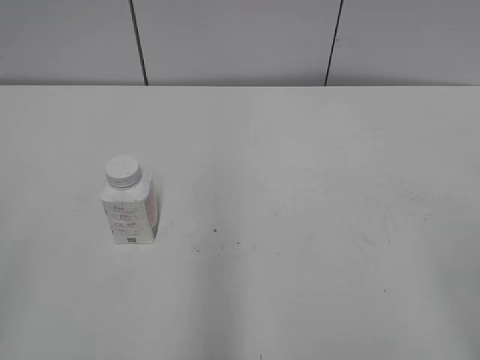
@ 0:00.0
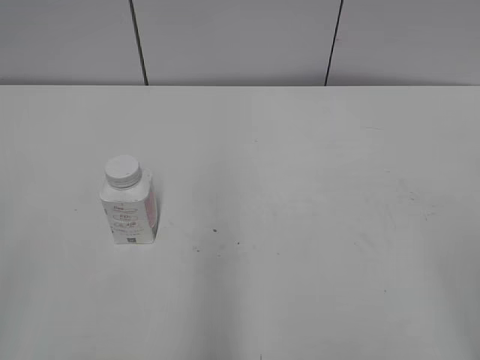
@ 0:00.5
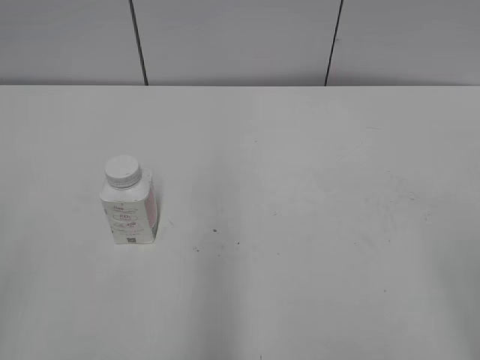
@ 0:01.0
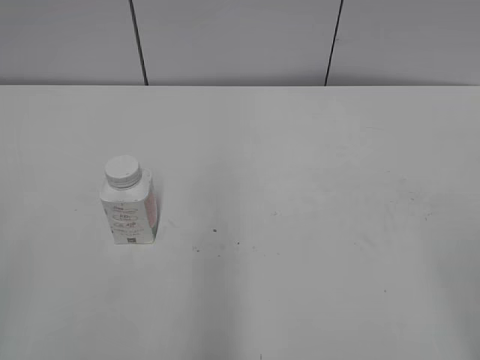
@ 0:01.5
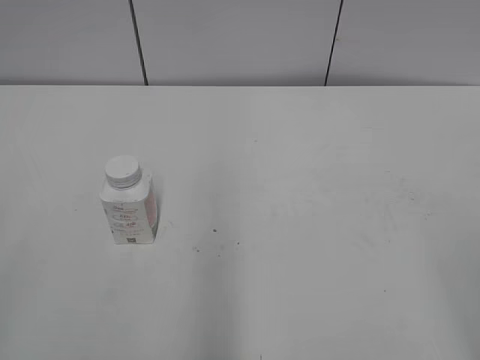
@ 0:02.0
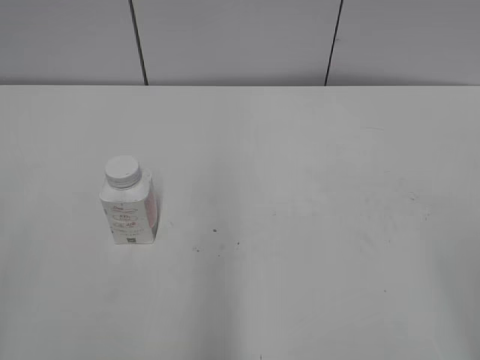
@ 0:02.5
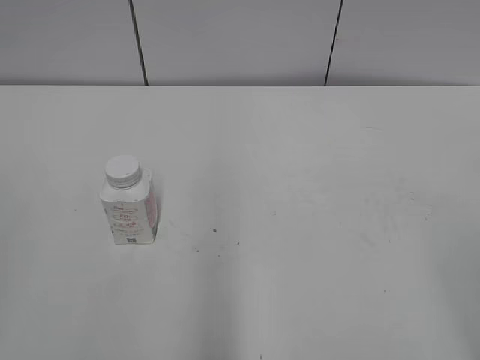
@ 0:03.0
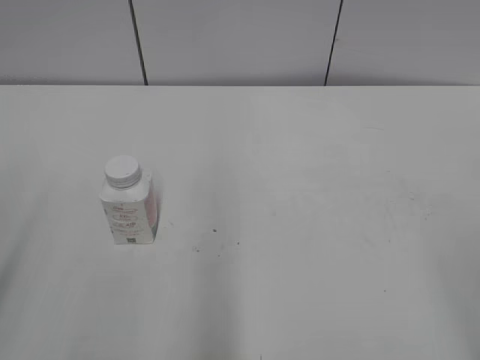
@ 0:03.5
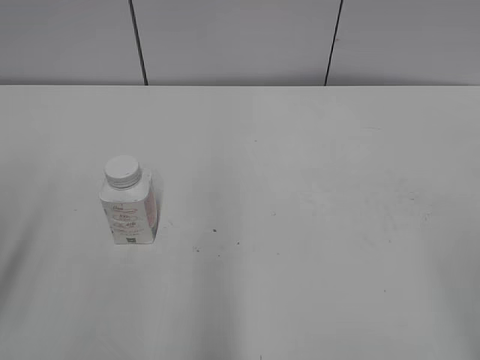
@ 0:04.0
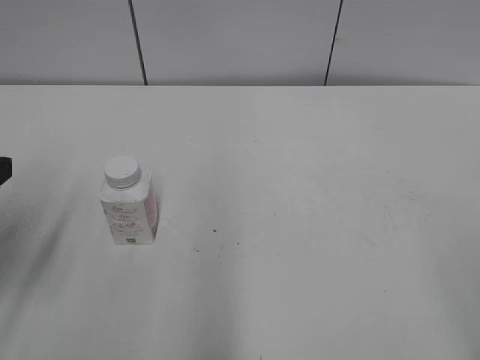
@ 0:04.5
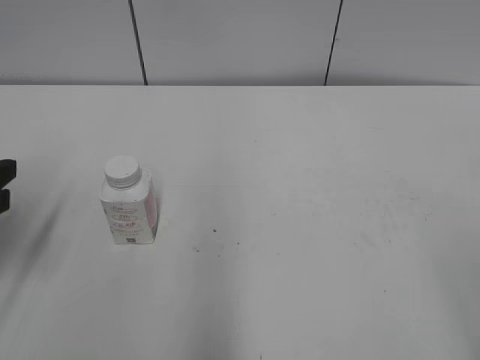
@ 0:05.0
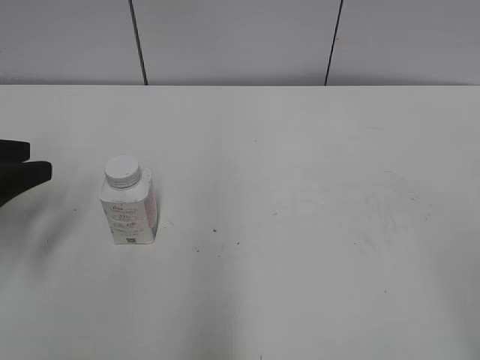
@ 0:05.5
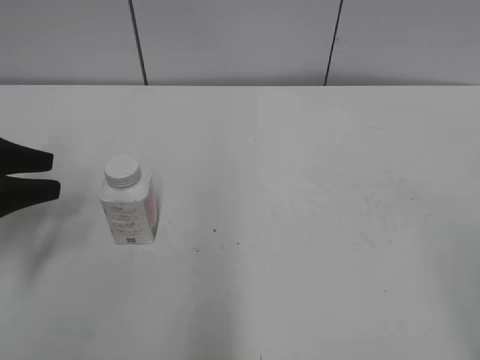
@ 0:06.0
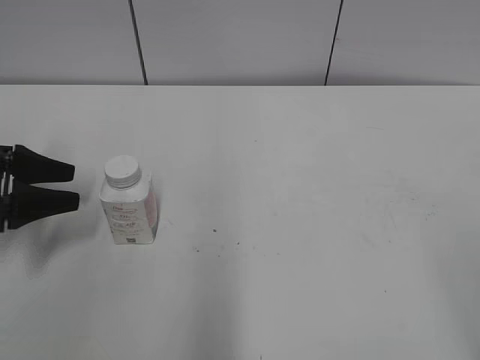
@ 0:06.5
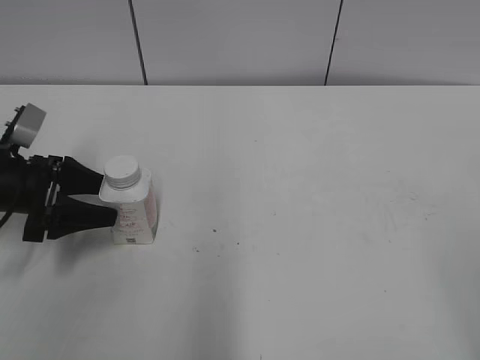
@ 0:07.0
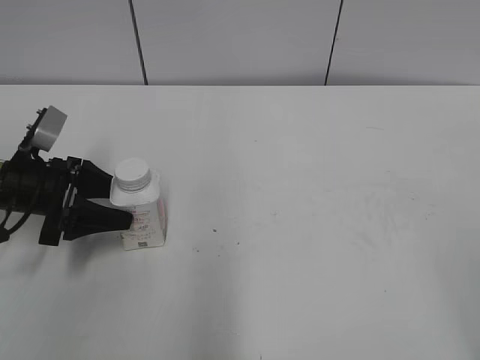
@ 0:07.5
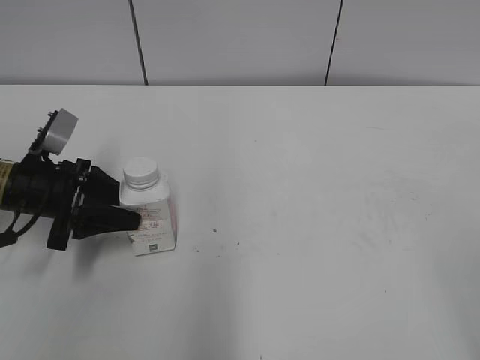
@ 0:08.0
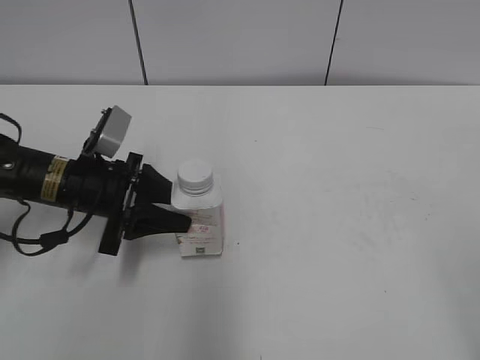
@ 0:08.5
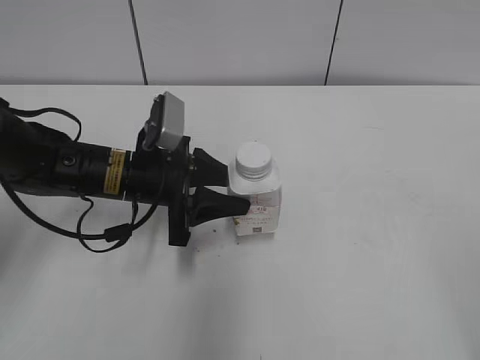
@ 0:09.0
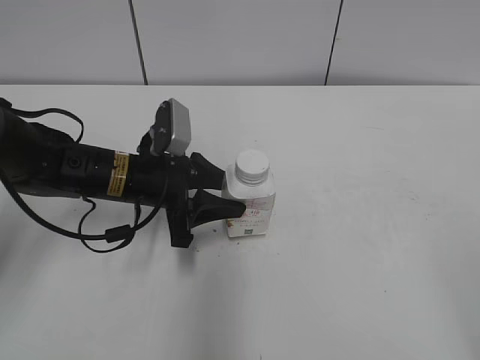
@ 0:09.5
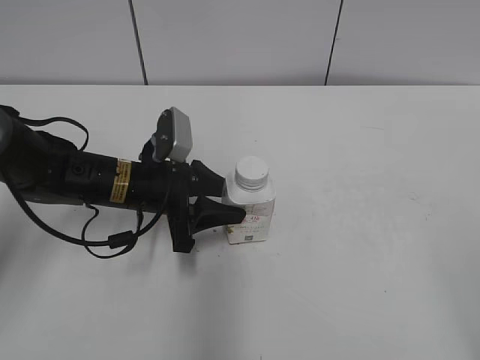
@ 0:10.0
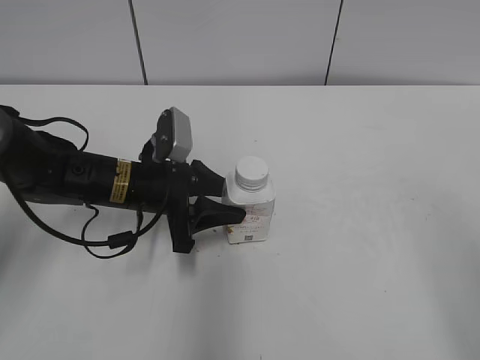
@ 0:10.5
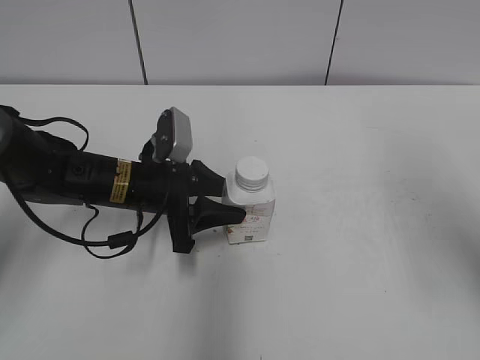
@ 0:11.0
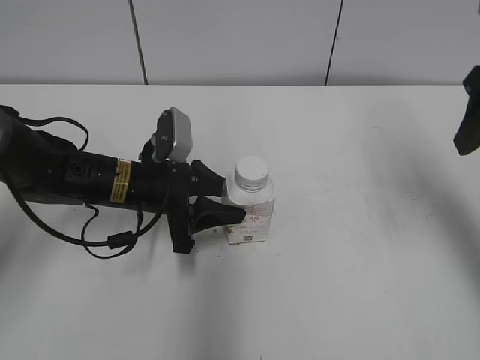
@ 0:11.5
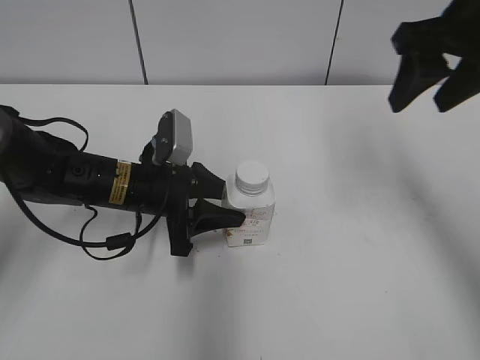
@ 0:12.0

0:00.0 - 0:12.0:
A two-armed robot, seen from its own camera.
Step, 0:00.0 - 0:07.5: Grab the Yili Changqing with the left hand.
Step, 0:08.0 - 0:10.5: Move the Yili Changqing from left to right.
0:04.0 - 0:06.0: The left gripper heads forward and downward, covering about 15 cm.
0:06.0 - 0:08.0: The left gripper is displaced downward, to the right and forward by some 10 cm, and opens and closes again.
0:08.0 - 0:10.0: The left gripper heads to the right, covering approximately 15 cm.
0:10.0 - 0:12.0: The right gripper goes approximately 35 cm forward, and closes its fingers.

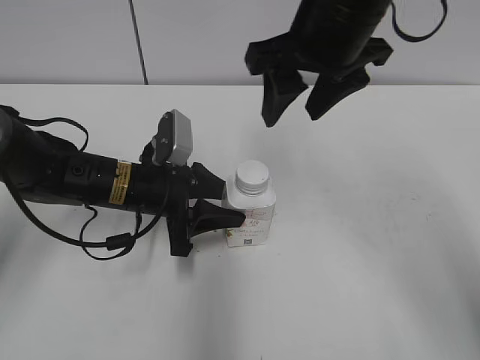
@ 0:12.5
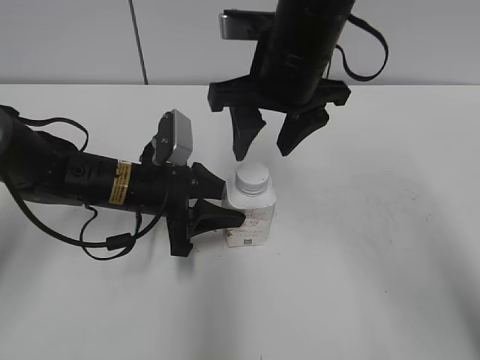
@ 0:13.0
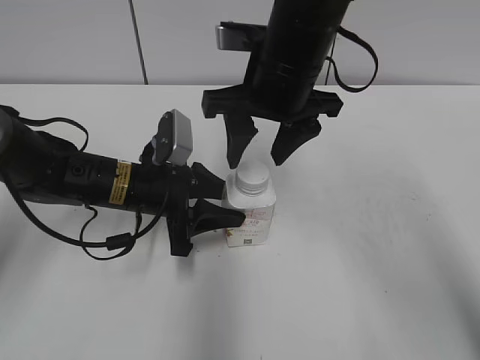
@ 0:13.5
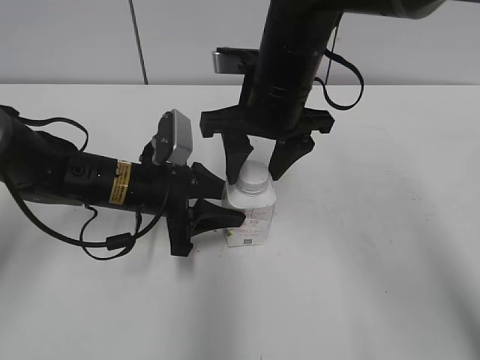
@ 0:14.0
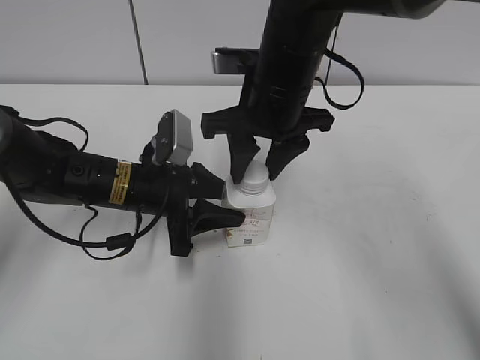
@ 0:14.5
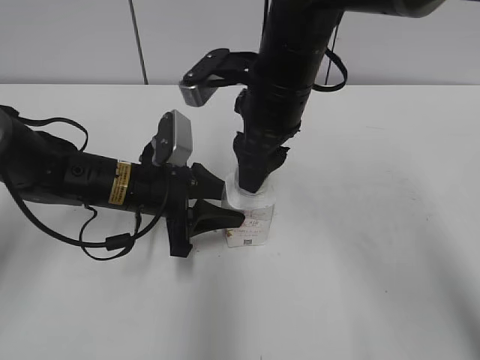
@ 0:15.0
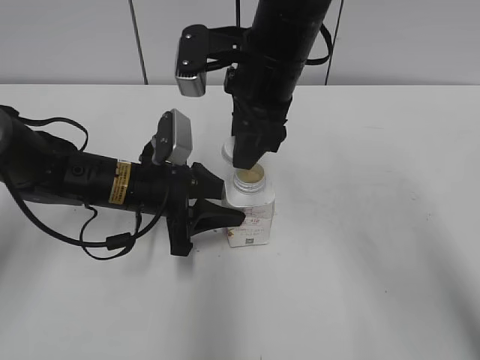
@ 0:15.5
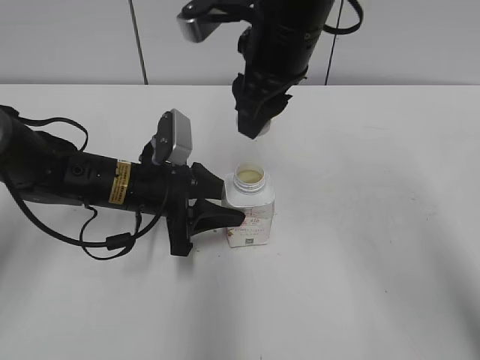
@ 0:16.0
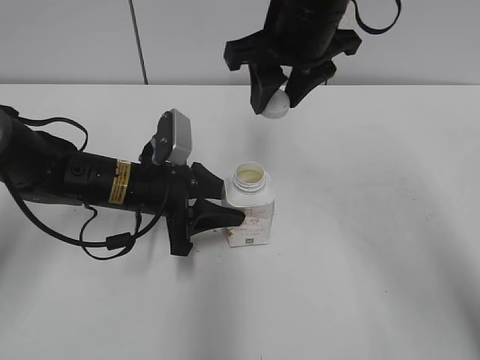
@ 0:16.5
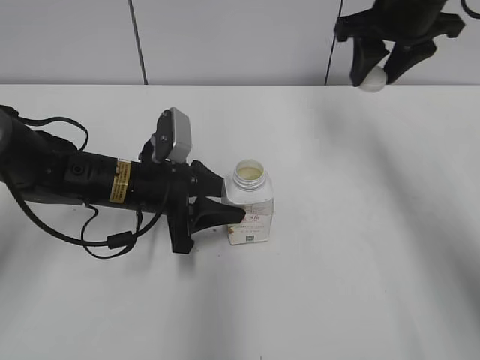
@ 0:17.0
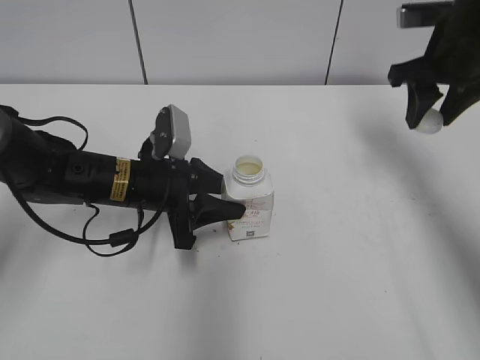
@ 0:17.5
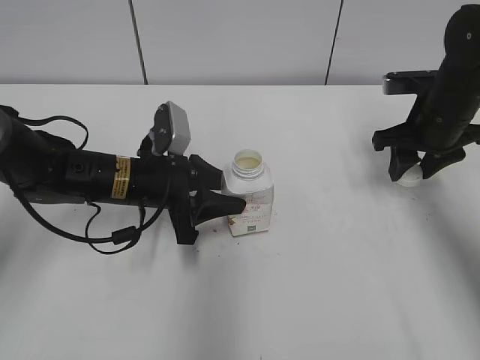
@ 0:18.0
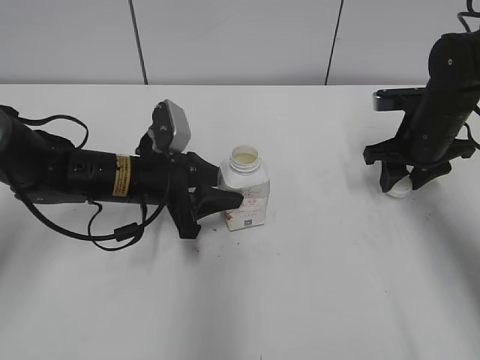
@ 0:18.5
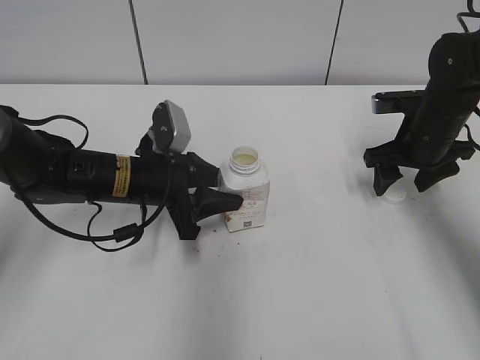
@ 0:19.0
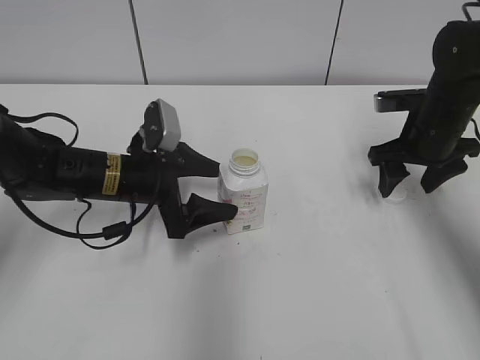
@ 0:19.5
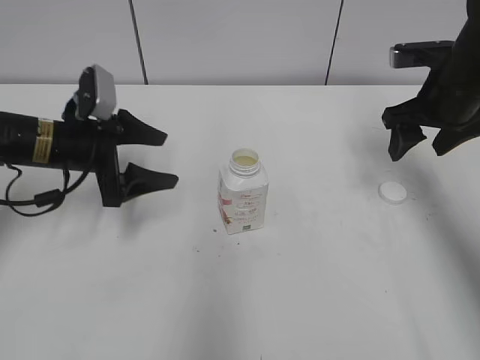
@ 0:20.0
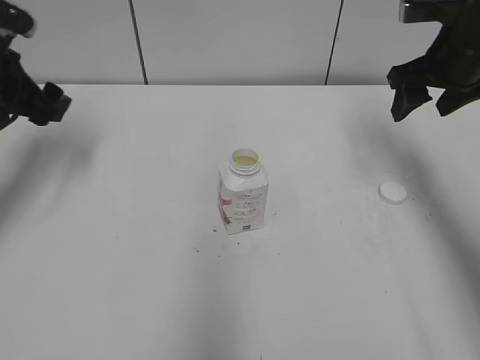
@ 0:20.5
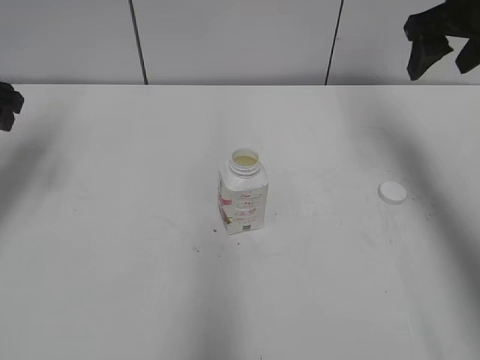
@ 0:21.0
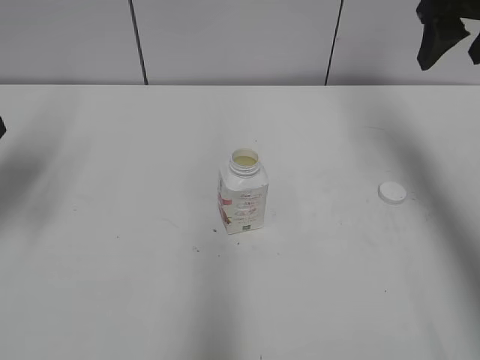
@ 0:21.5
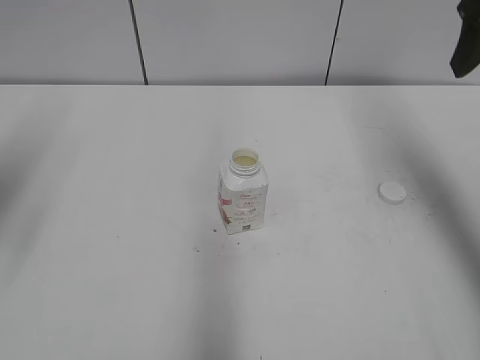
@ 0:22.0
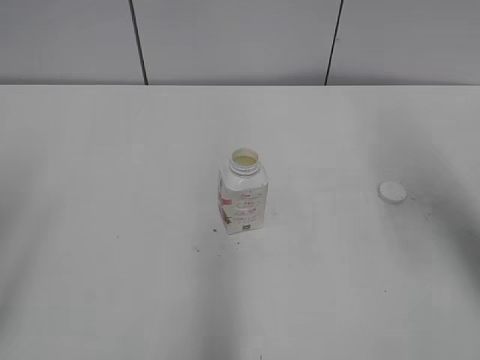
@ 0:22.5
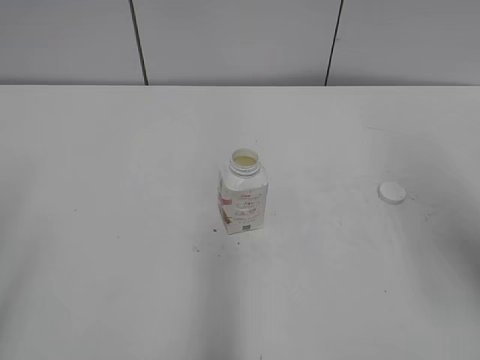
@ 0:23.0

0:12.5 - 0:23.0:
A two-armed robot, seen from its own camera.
Step, 0:15.5 - 0:18.5: Place the bottle cap on the right.
0:12.5 - 0:14.5: The right gripper is displaced downward by about 10 cm, and closes.
0:14.5 - 0:16.5: The right gripper moves upward, approximately 5 cm.
0:16.5 - 0:19.0: The right gripper shifts about 25 cm to the right and downward, and opens.
0:19.0 - 0:21.0: The right gripper is displaced upward by some 15 cm; the left gripper shifts approximately 25 cm to the left and upward, and opens its fingers.
0:21.0 - 0:23.0: Both grippers move backward, roughly 25 cm.

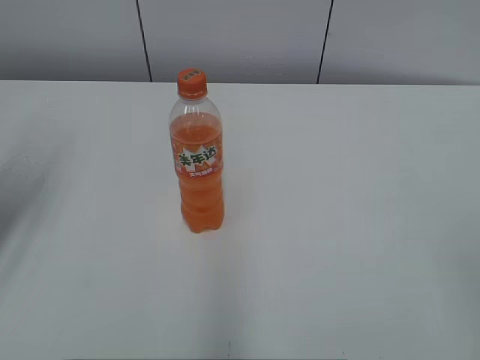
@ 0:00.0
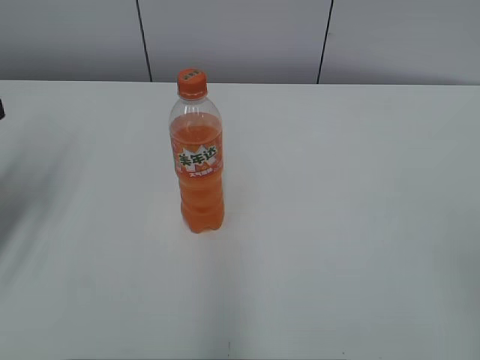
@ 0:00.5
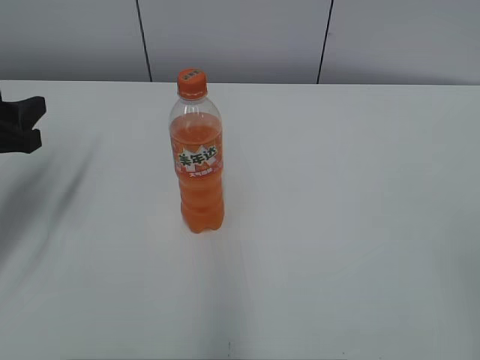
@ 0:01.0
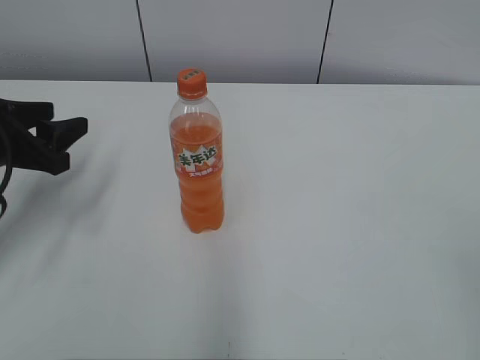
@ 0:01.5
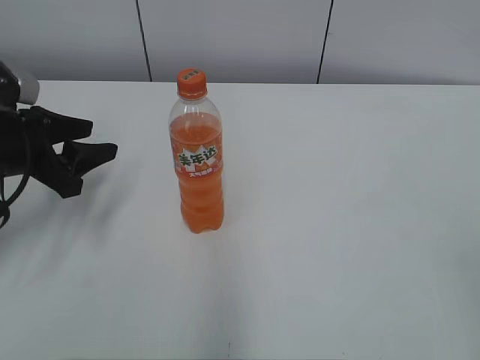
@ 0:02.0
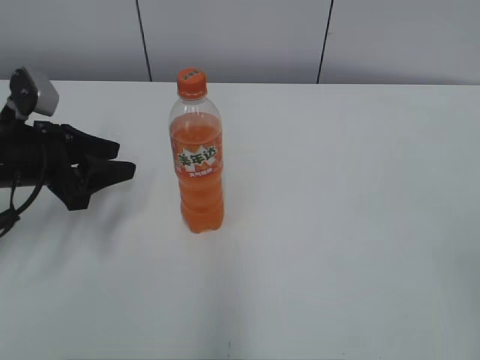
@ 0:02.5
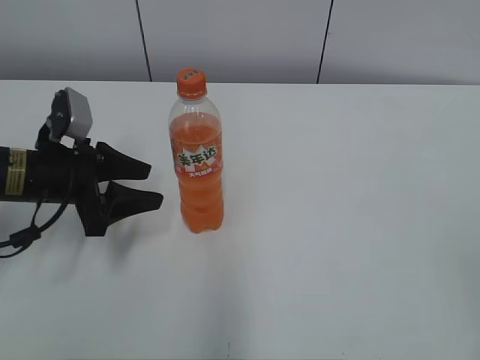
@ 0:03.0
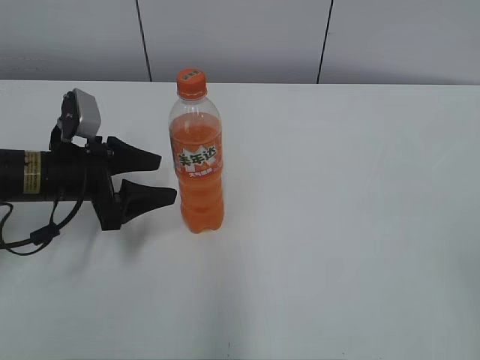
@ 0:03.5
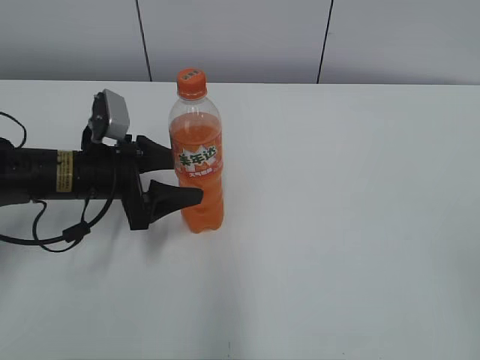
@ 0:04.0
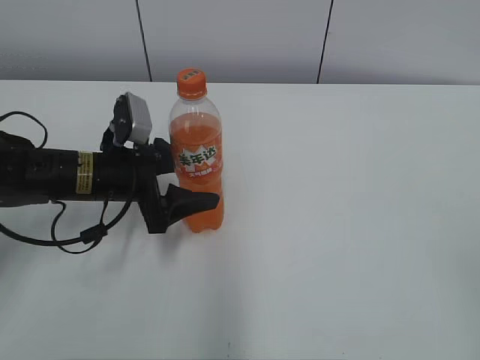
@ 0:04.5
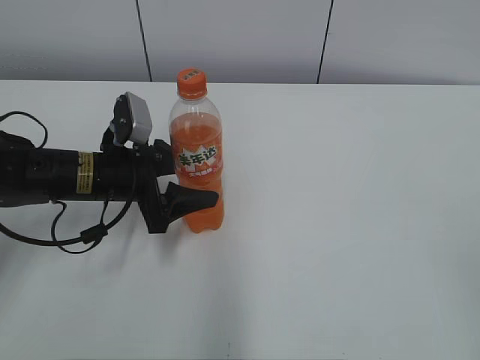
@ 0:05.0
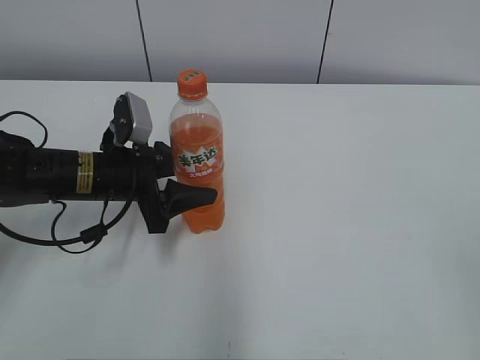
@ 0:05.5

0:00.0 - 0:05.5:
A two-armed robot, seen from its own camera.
Step, 0:00.0 - 0:05.0: Grab the Mirinda with the left hand.
0:00.0 - 0:02.0: The left gripper travels downward, forward and to the right by approximately 10 cm.
0:02.0 - 0:03.5: The left gripper heads downward, covering about 5 cm, and opens up.
0:03.5 - 0:05.5: The left gripper travels to the right by approximately 5 cm, and closes up.
